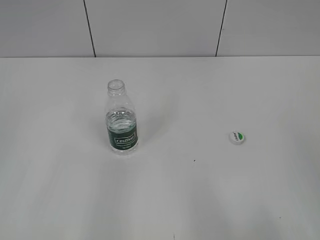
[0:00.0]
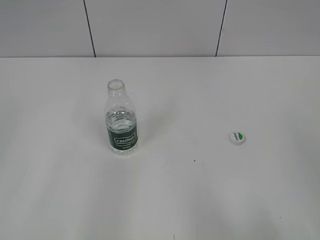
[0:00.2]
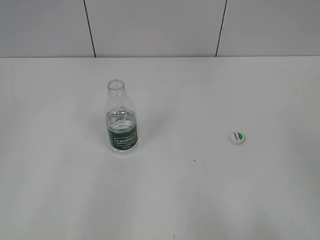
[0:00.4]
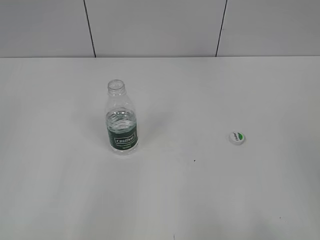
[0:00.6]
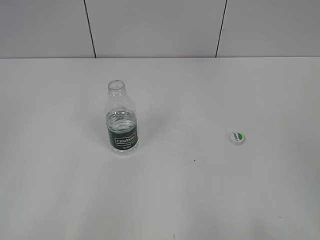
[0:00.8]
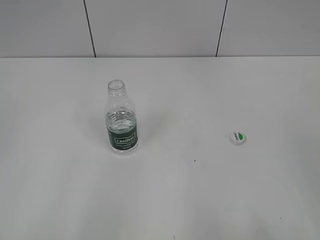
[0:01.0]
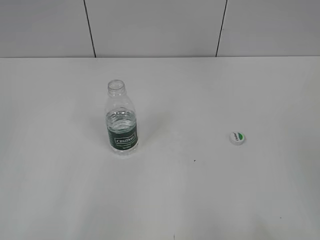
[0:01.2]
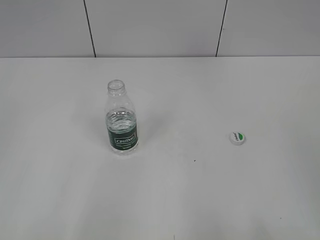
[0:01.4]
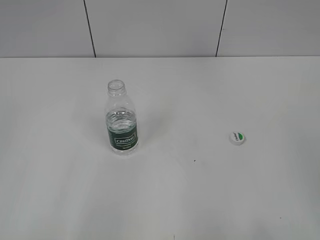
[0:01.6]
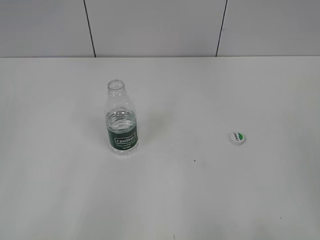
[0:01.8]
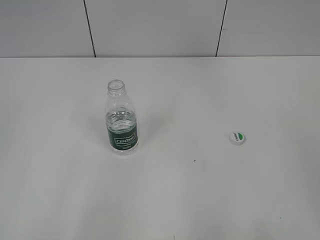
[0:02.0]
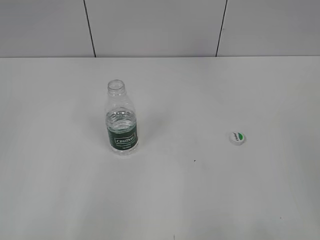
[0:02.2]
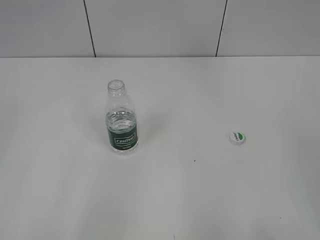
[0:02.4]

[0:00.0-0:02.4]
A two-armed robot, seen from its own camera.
0:01.2 to 0:02.4: Neither gripper changes place.
